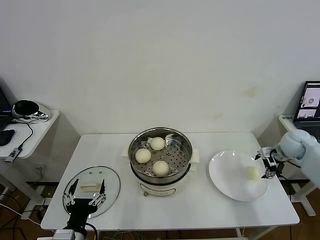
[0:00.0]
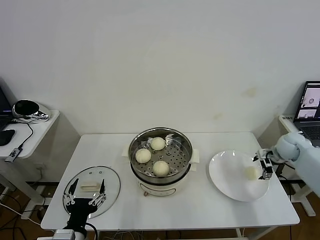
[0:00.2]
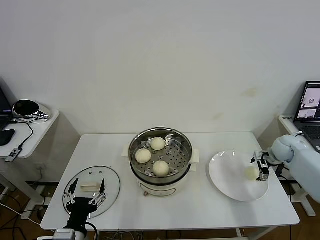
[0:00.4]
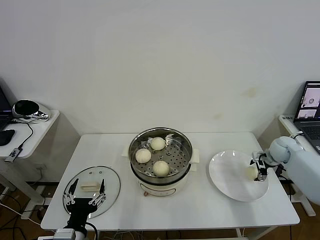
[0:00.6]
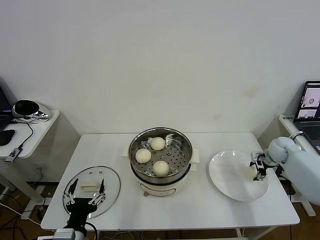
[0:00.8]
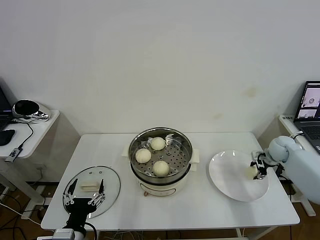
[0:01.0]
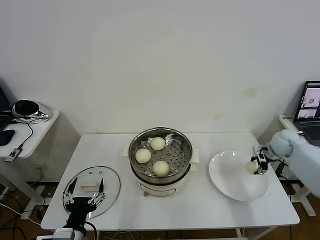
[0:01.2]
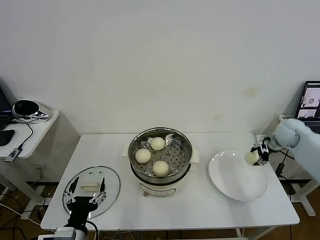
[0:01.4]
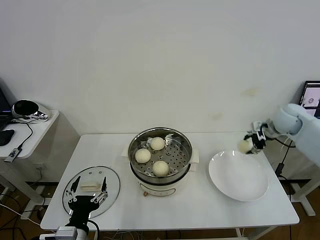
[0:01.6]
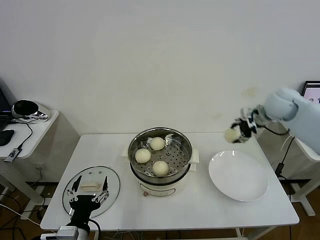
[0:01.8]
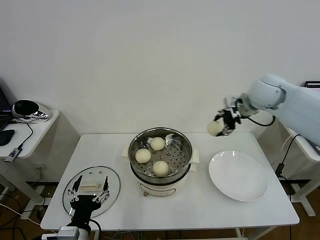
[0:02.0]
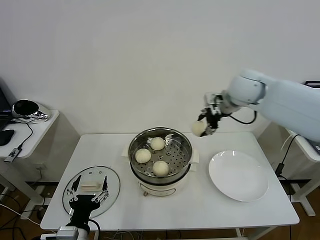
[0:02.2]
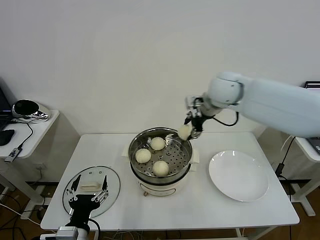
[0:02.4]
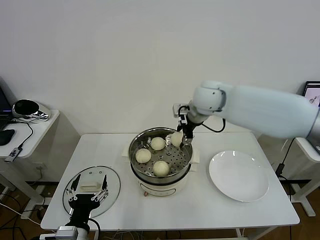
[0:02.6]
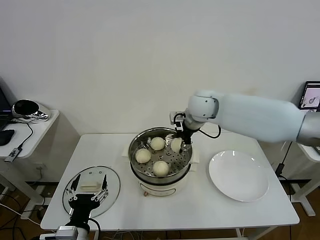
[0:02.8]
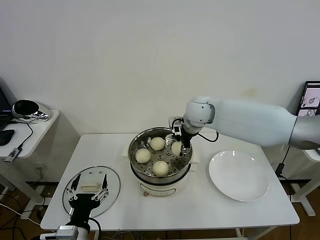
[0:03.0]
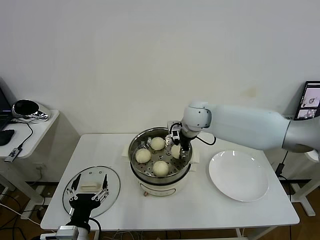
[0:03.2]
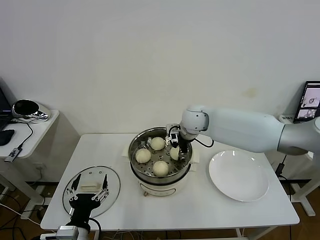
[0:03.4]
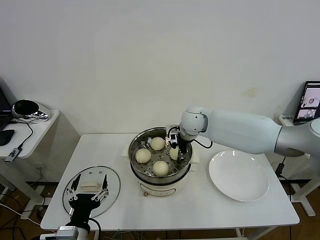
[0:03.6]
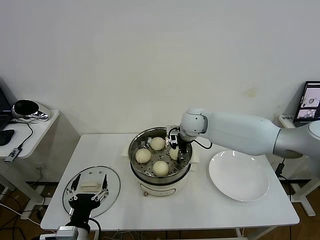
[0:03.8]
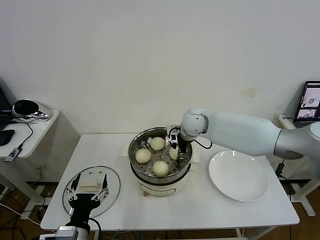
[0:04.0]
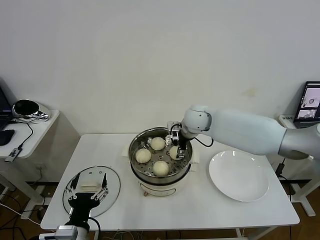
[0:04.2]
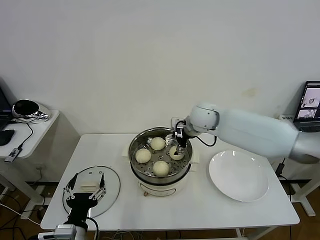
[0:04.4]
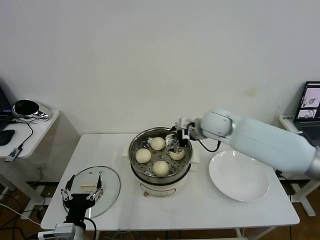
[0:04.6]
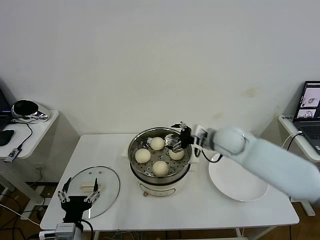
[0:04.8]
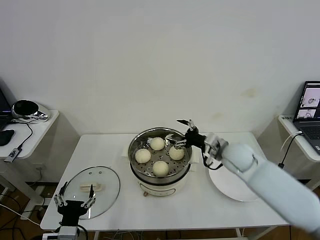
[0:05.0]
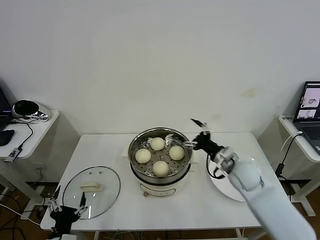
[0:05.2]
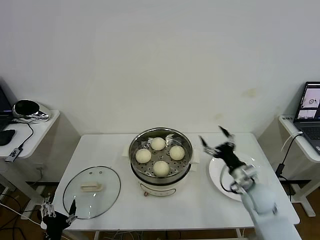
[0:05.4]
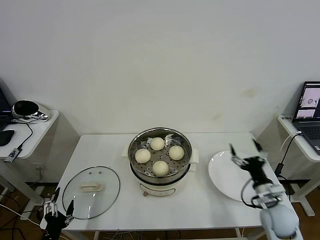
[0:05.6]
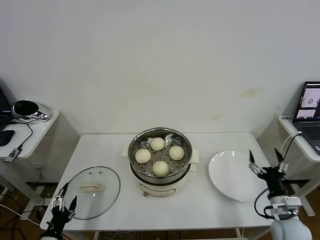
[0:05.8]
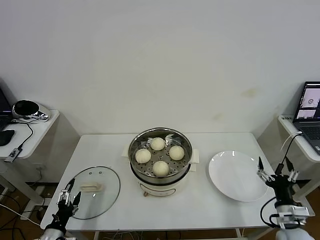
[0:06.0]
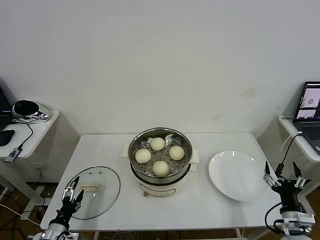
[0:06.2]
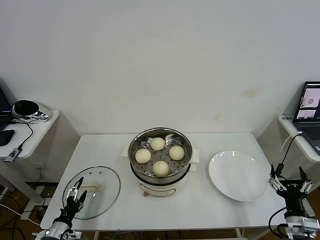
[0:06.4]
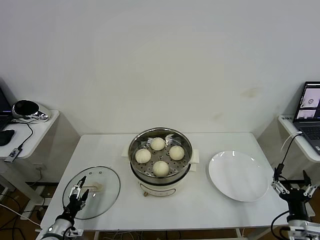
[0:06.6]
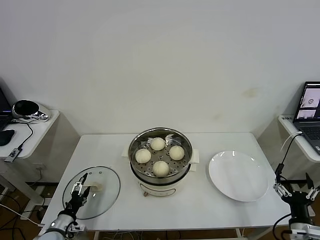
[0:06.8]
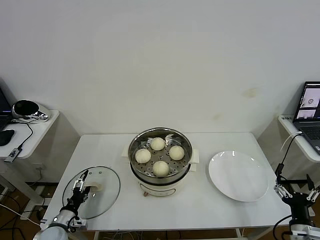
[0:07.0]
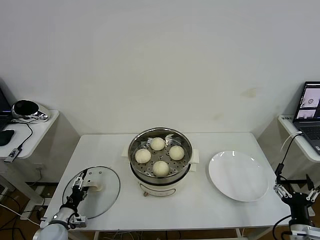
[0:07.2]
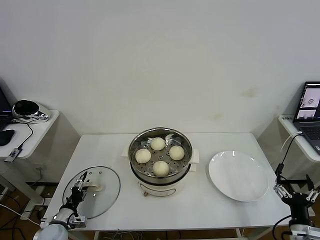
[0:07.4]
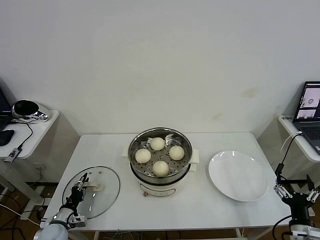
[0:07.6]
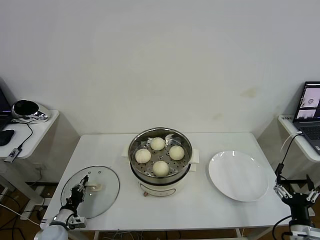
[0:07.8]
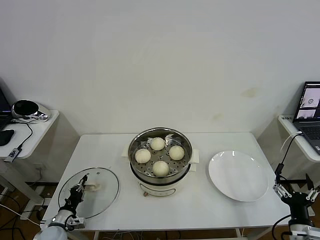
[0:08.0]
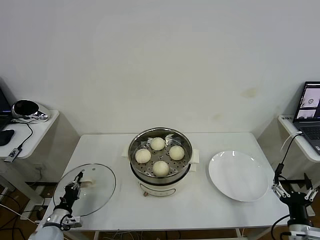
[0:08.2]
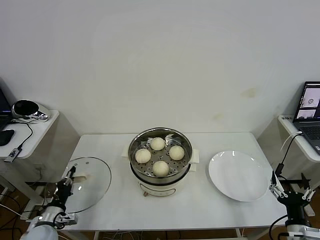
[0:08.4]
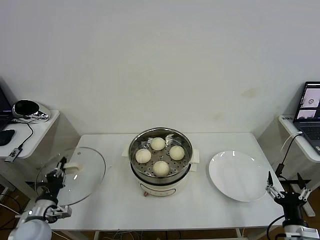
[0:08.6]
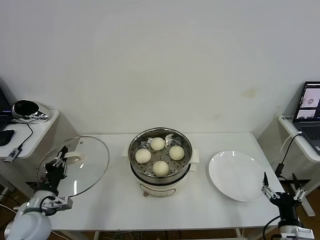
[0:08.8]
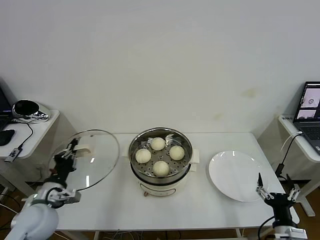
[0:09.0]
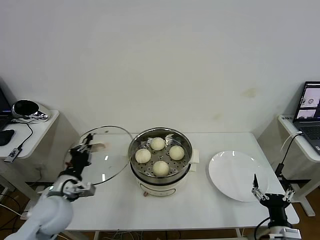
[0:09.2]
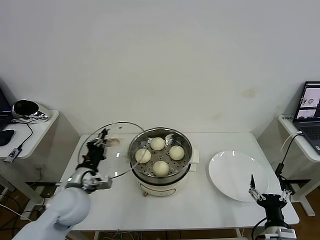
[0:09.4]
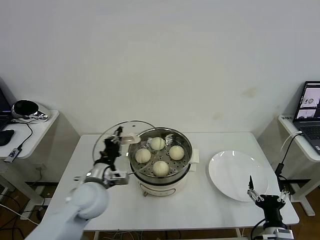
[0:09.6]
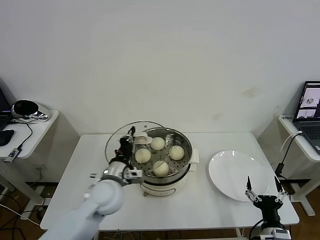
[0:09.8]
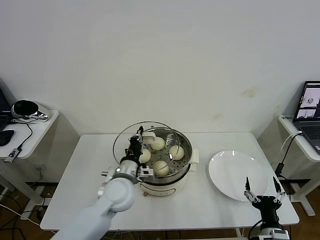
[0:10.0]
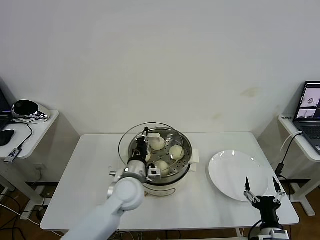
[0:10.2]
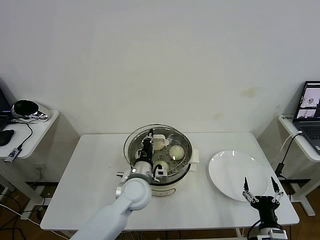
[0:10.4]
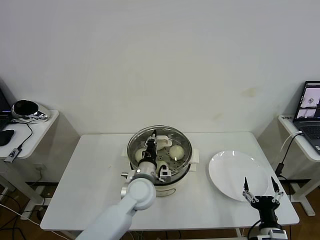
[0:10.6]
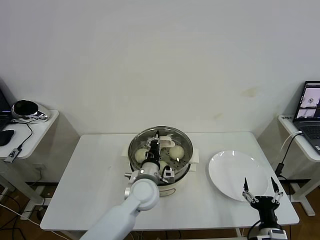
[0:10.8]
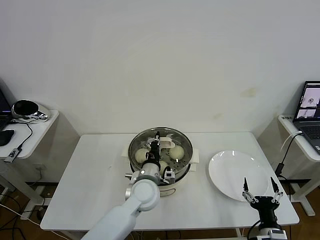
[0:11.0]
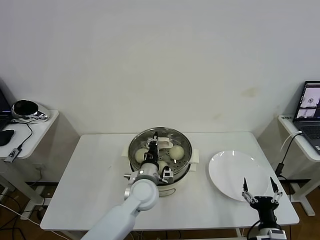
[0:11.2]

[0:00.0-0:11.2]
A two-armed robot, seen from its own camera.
Task of the whole recording: take steamed baozi put them in steamer then cover it.
Step, 1.2 to 4.2 s: Place the baozi on the steamer with right gripper.
Step, 4.4 to 8.2 s: Grasp the pot lid with left gripper.
0.0 to 1.6 s: The right gripper goes approximately 10 cm upward and to the left, and closes its fingers.
1.6 to 3.2 s: The right gripper goes about 30 cm to the left.
3.2 to 4.8 s: The right gripper heads to the right and backward, covering roughly 10 cm, and opens.
4.8 to 6.4 s: The left gripper goes some 20 cm to the left and downward, while the right gripper shifts about 40 cm backward, to the right and downward.
6.4 to 8.0 s: The left gripper shifts about 5 cm forward, and closes.
8.0 to 9.6 s: The right gripper shifts about 5 cm to the left. The left gripper shifts about 30 cm upward and to the right.
9.6 to 11.2 s: The left gripper shifts some 15 cm to the right.

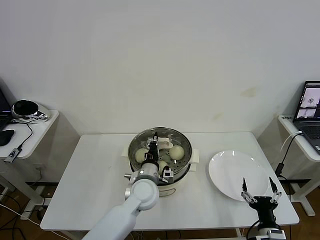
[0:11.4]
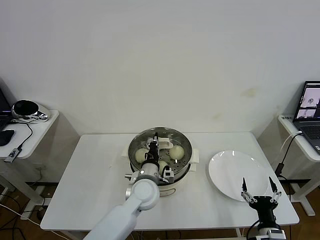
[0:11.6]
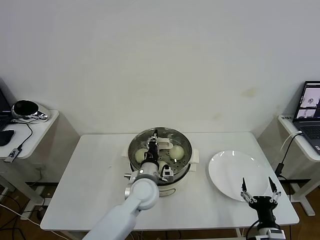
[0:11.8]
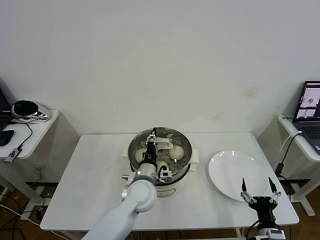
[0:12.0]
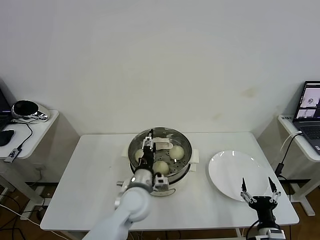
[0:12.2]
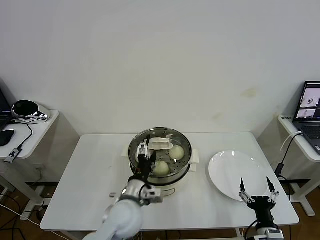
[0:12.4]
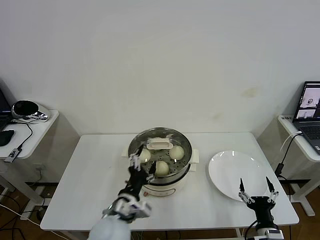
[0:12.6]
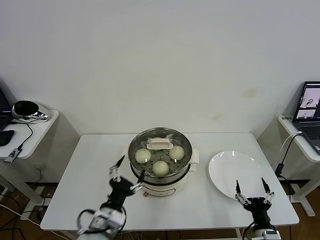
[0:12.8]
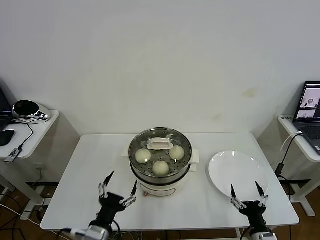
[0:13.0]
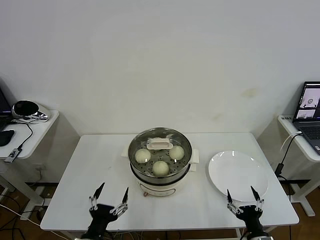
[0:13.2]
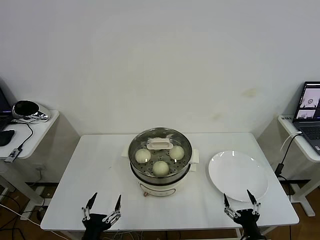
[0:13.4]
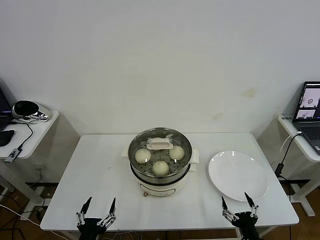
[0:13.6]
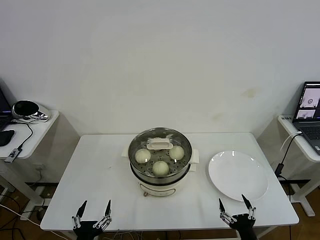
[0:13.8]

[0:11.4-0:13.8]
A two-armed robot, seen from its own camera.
Task of the whole recording: take steamed baozi put them in steamer then cover it.
11.4 to 12.6 s: The left gripper moves backward and to the left, roughly 15 cm, and opens its fingers.
12.6 to 13.8 s: The right gripper moves roughly 5 cm; the left gripper is displaced backward, to the left and downward by roughly 20 cm.

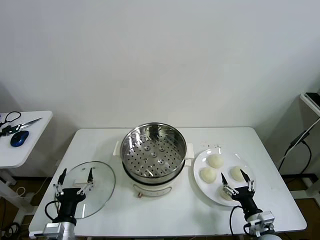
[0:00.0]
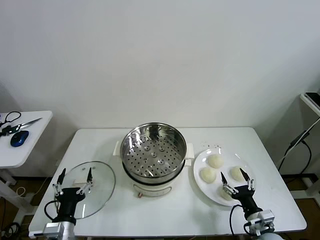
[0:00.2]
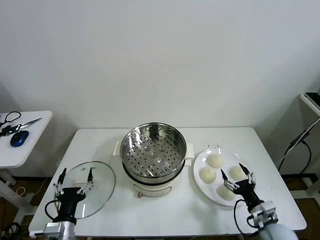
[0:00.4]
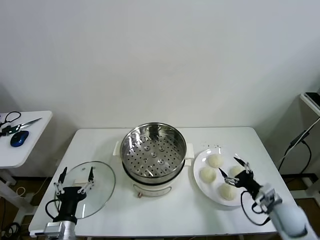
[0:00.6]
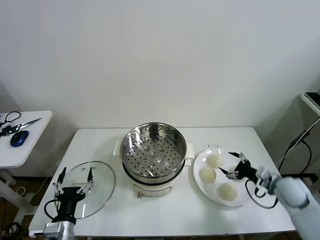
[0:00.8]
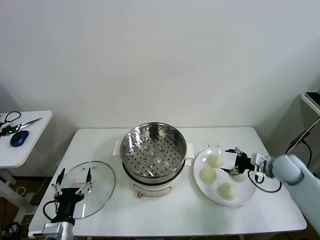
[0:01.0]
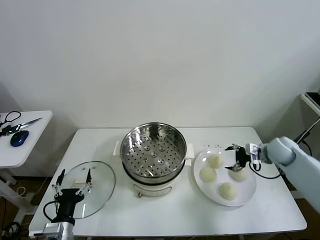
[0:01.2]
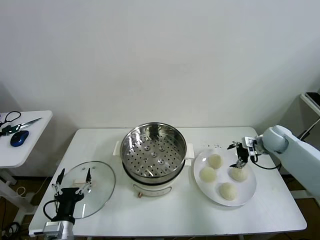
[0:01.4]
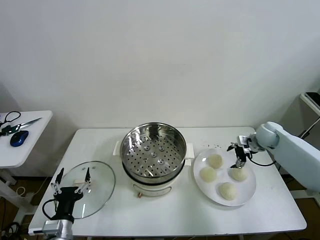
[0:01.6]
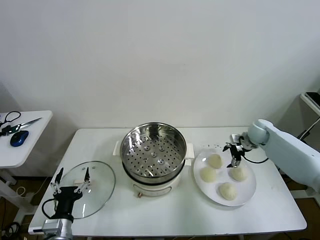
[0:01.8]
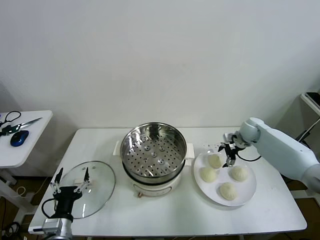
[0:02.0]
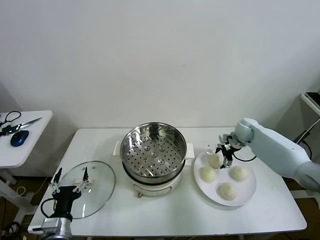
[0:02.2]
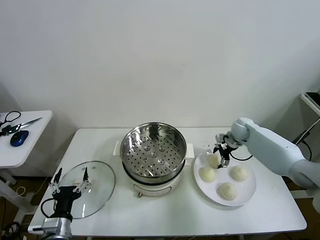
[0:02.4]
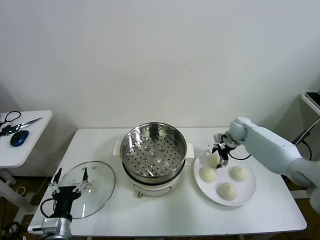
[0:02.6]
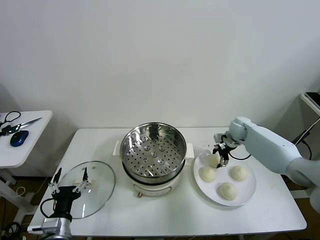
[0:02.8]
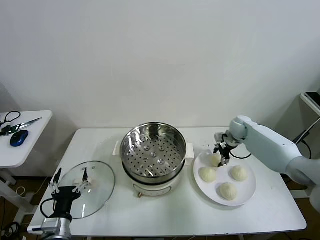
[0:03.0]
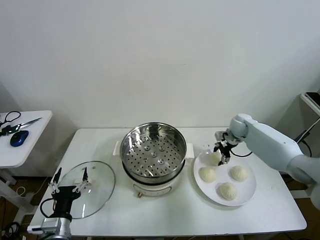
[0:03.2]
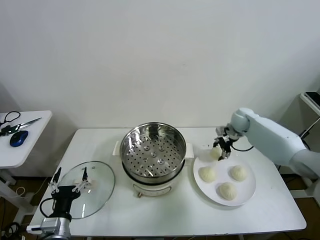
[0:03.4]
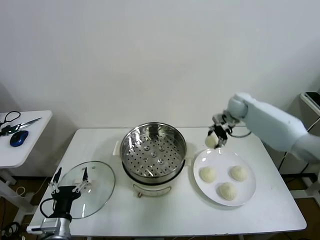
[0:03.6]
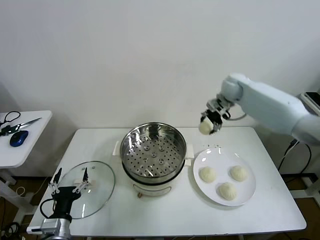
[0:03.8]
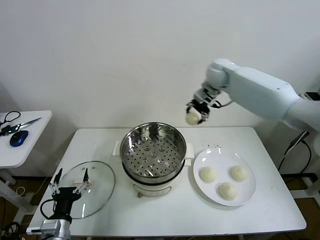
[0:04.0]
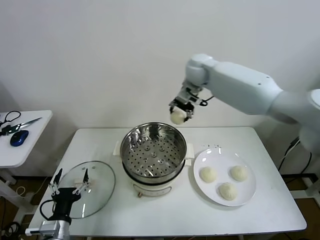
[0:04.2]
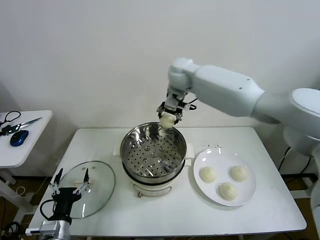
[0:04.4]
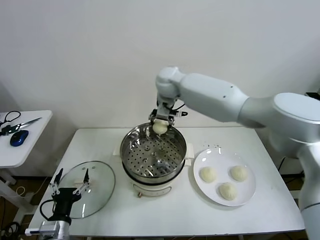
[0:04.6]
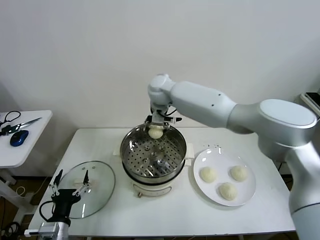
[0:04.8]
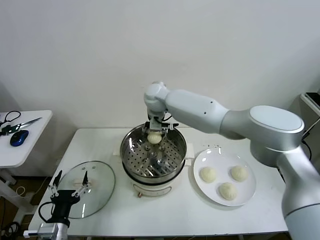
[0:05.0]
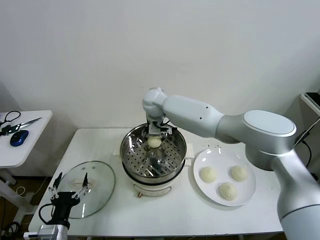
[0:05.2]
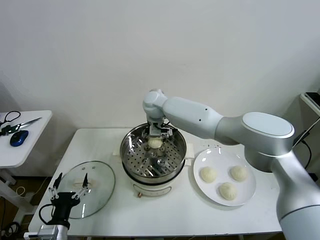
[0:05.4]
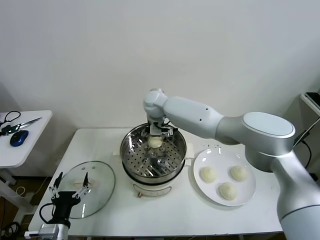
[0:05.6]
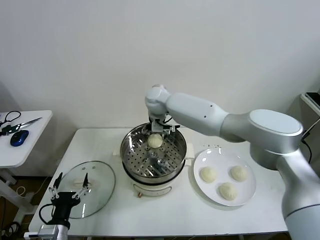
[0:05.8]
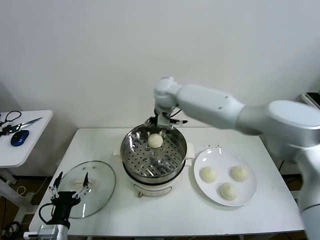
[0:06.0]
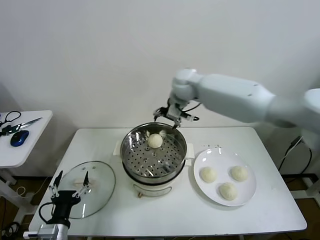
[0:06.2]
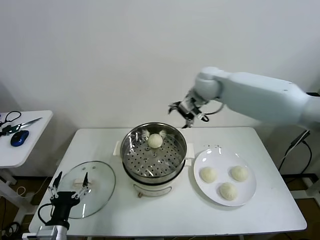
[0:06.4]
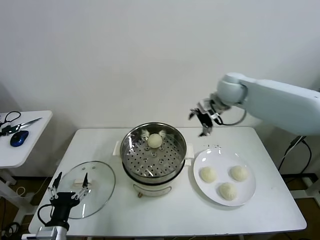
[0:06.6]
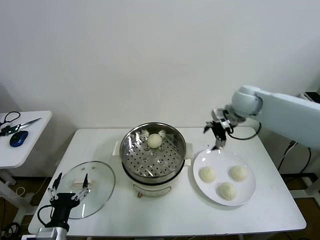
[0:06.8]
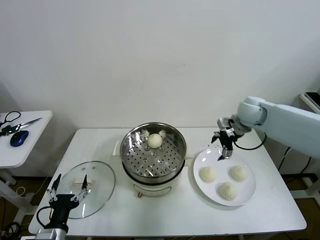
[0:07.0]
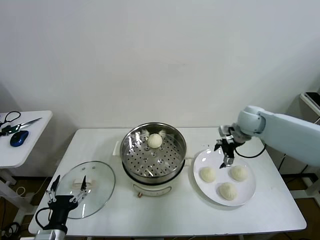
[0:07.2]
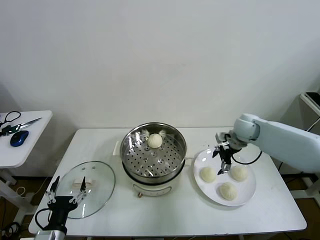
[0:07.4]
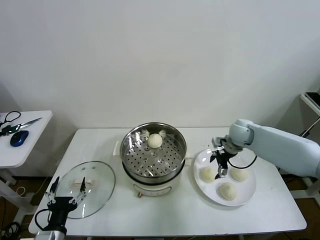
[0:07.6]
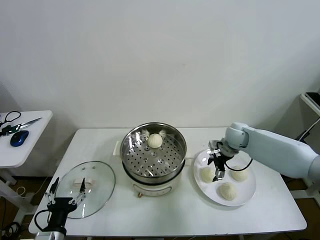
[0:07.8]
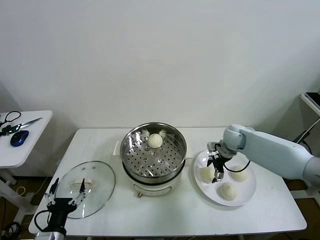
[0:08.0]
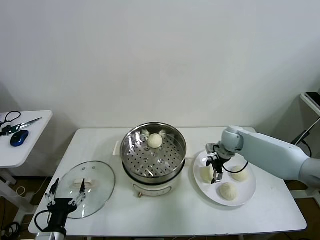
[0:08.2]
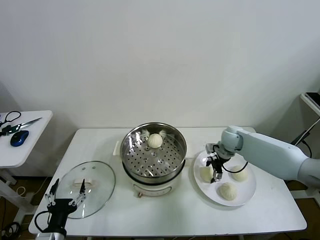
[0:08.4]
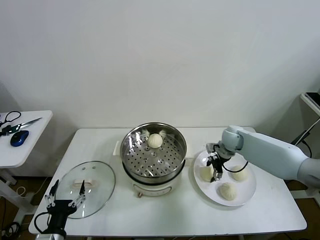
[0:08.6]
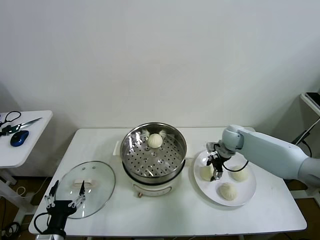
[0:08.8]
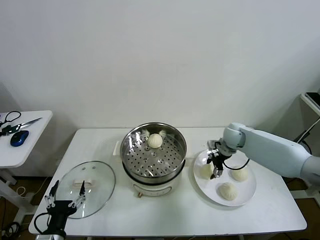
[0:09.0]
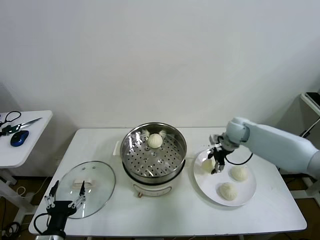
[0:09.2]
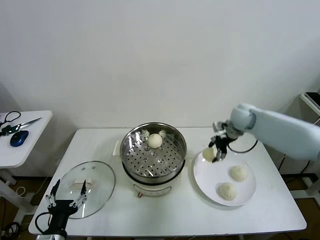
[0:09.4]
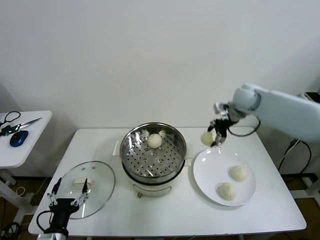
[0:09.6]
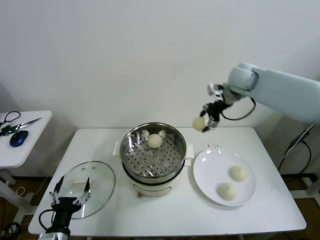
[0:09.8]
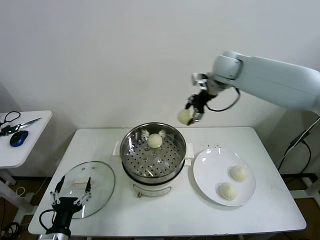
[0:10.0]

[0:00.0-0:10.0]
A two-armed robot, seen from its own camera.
Task of the whole recording: take steamed baozi put them in steamer then cover it.
Step, 0.0 to 2.8 s: Grasp the baozi in the plate with right gripper.
Step, 3.0 to 5.4 s: Place the baozi on the steamer with right gripper.
Step, 5.6 to 8.4 s: Grasp the baozi in the plate with right gripper.
1.4 to 2.8 s: The right gripper heads to the left and forward, covering approximately 10 cm.
2.8 to 4.2 s: The right gripper heads upward and to the left, covering approximately 35 cm.
4.2 to 5.8 s: The right gripper heads to the left and downward, covering some 10 cm.
5.8 to 7.2 s: The right gripper is displaced to the right by some 30 cm.
7.2 to 8.6 s: The right gripper shifts some 10 cm downward.
8.6 to 10.0 s: The right gripper heads upward and to the left, covering roughly 30 cm.
